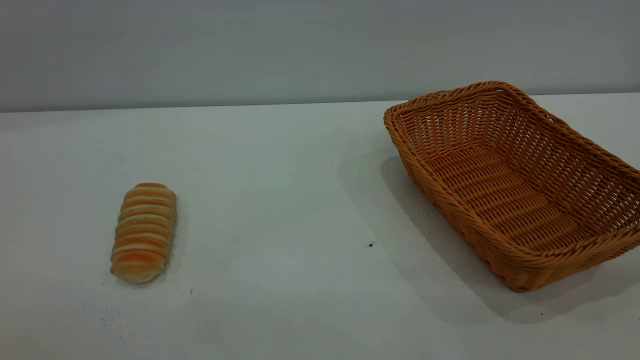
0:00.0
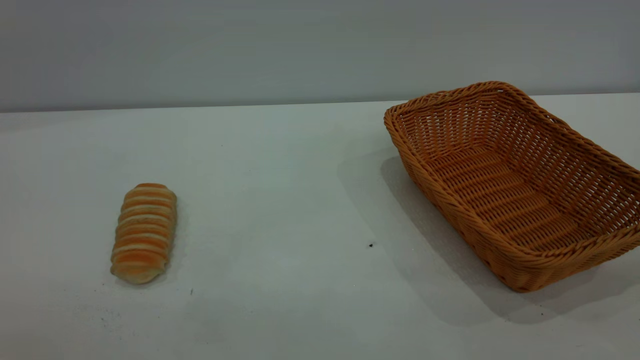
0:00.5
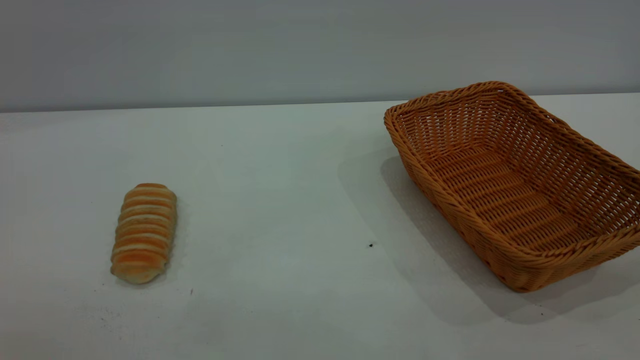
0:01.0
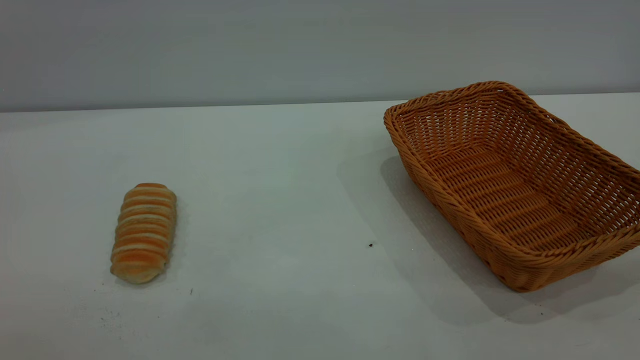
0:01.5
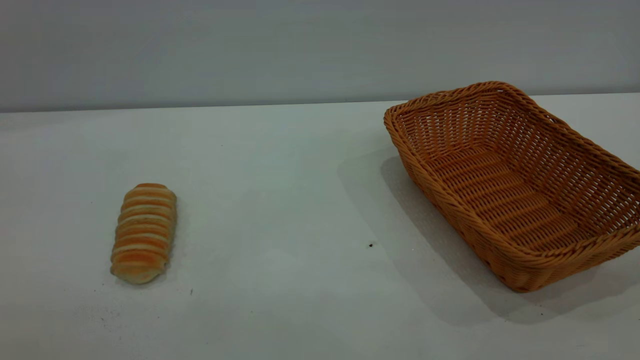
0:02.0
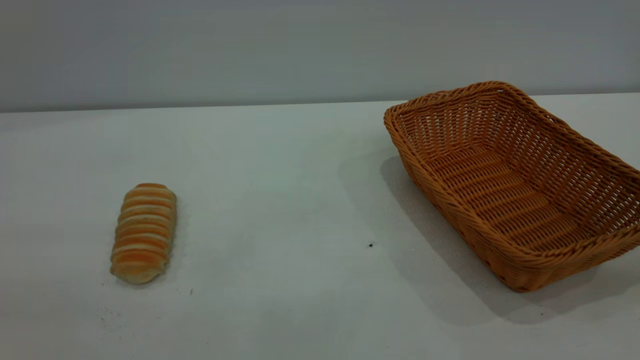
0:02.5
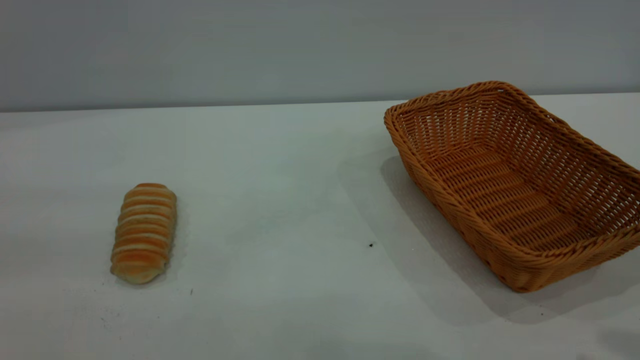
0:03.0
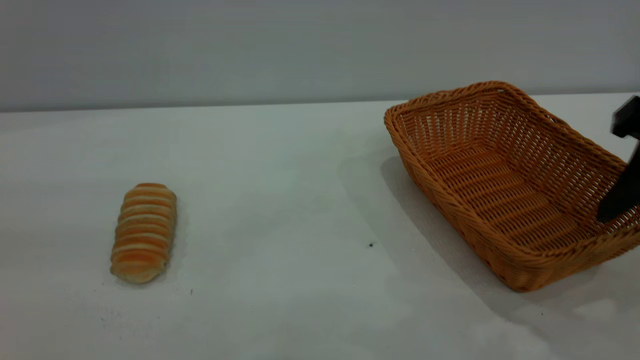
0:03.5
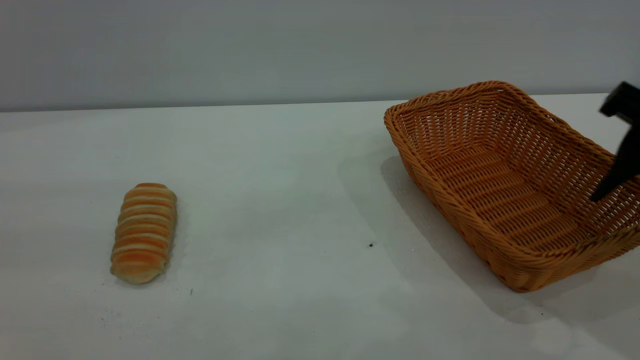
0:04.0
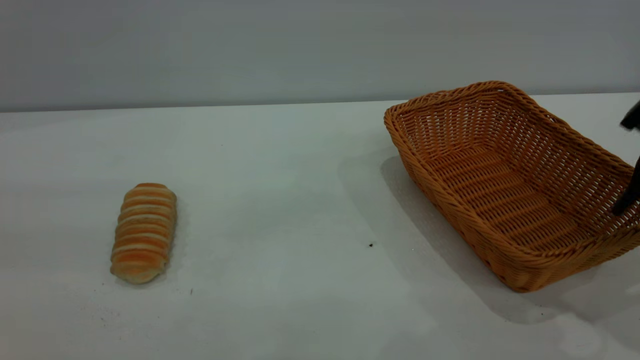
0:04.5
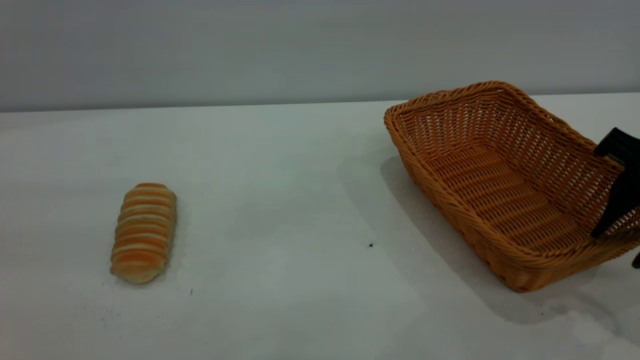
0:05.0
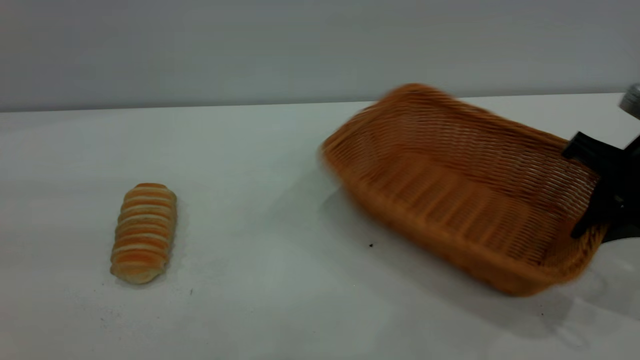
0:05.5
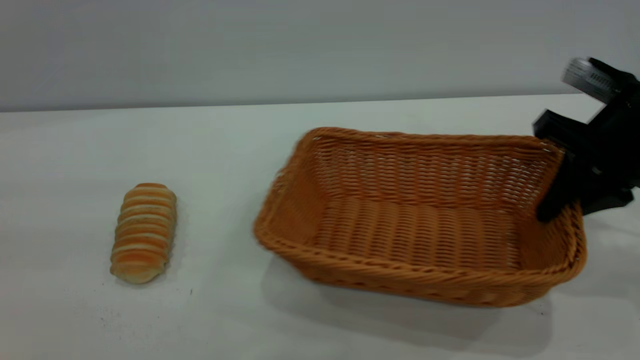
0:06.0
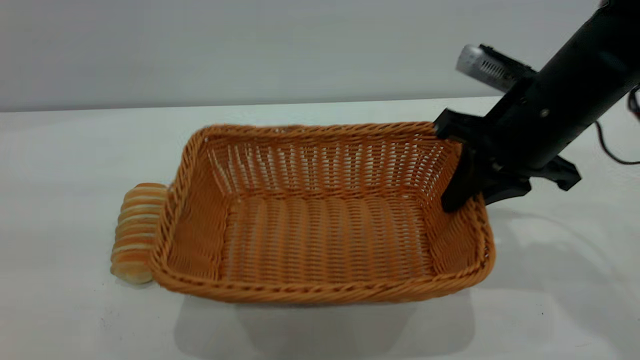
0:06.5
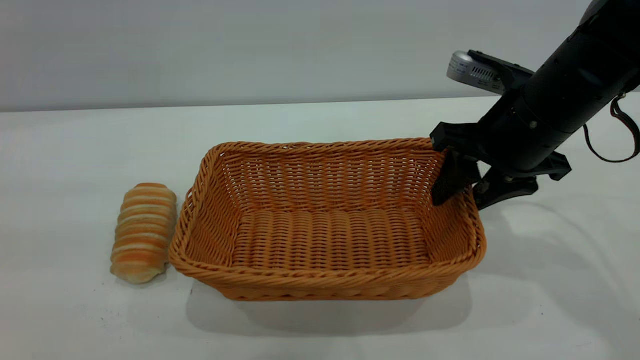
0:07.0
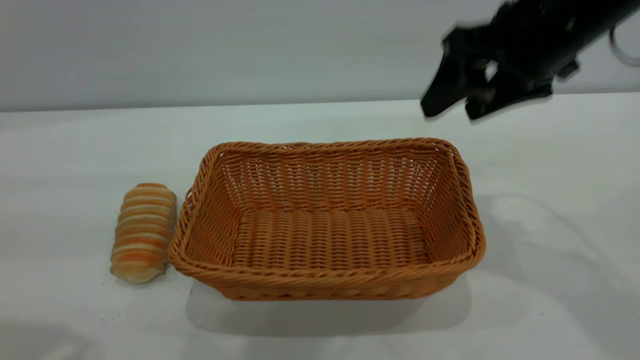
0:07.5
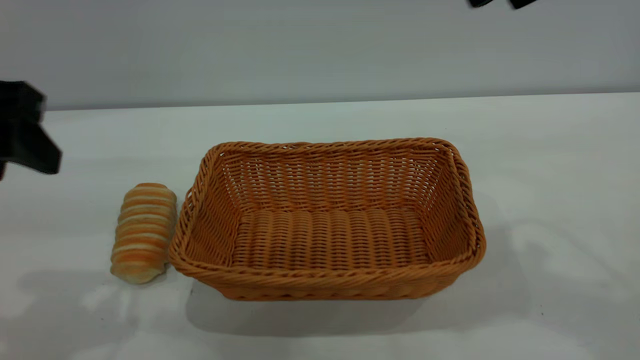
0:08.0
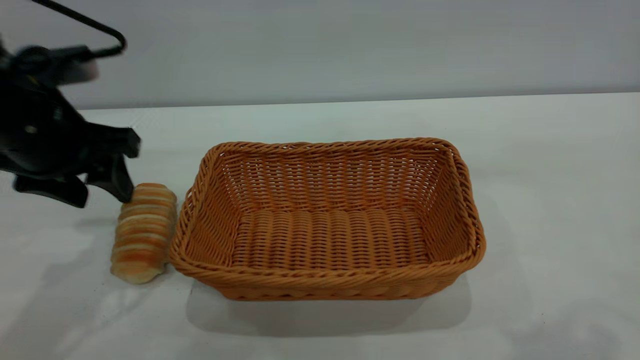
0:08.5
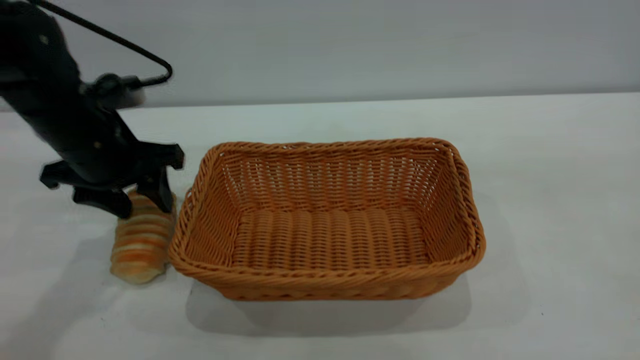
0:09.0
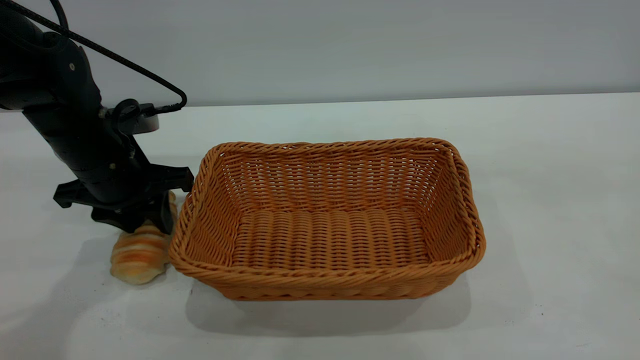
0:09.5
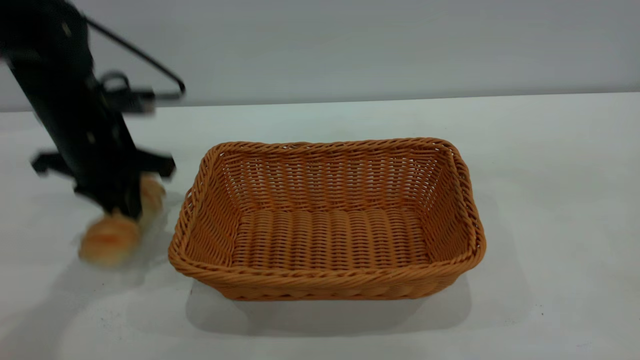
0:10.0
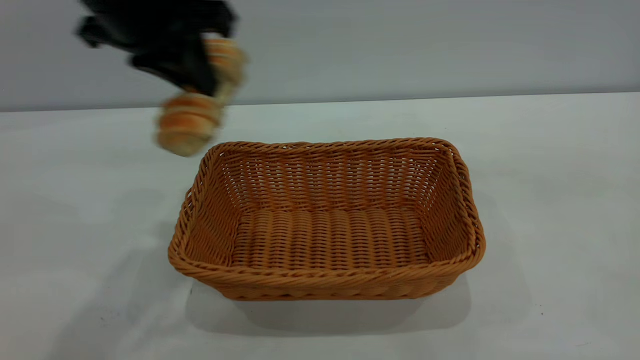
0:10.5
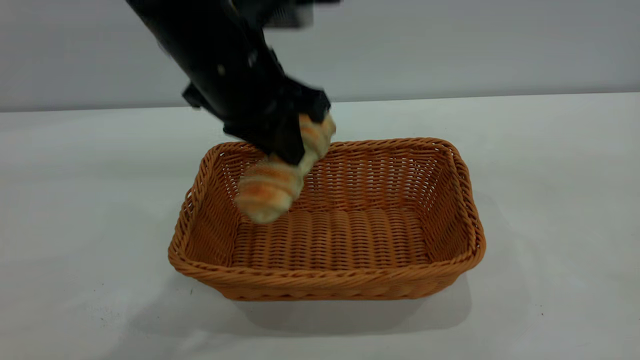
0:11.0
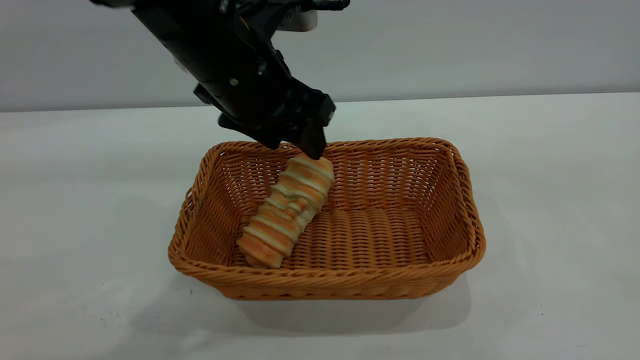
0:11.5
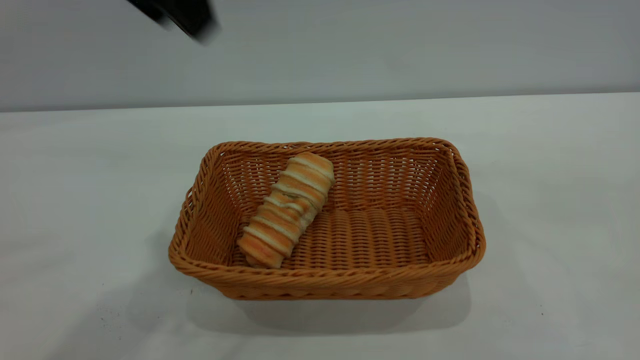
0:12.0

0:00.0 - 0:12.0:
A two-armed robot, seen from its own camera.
Task of the whole recording: One hand grasps the yellow basket and places it in the middle of the table, while the other hand picks up the long bread and puts it into the yellow basket.
Step, 0:00.0 - 0:07.0: Move the basket to the center of view.
Step, 0:10.5 - 0:11.5: place the bread into the basket.
0:02.0 - 0:04.0: The right gripper heads forward and downward, covering about 30 cm.
0:04.0 - 0:06.0: The right gripper travels forward by roughly 10 cm, and closes.
0:06.0 - 0:08.0: The left gripper moves forward and downward, some 15 cm; the right gripper heads upward, covering approximately 20 cm, and opens up.
0:08.0 - 0:10.0: The left gripper goes approximately 15 cm forward and downward, and closes up. Meanwhile the right gripper travels backward and upward by about 20 cm.
0:10.0 - 0:12.0: The left gripper swings up and down, roughly 20 cm each way, with 2 reversals, and opens.
